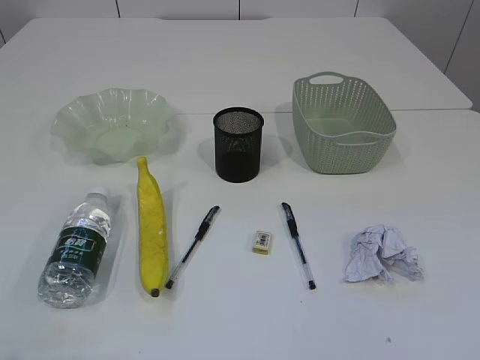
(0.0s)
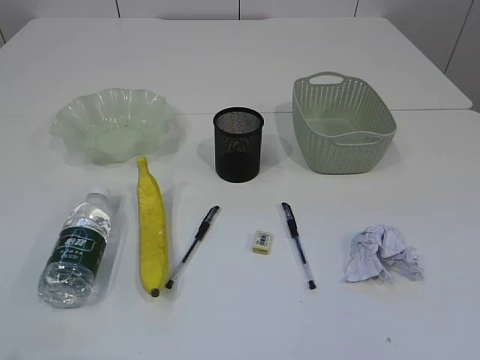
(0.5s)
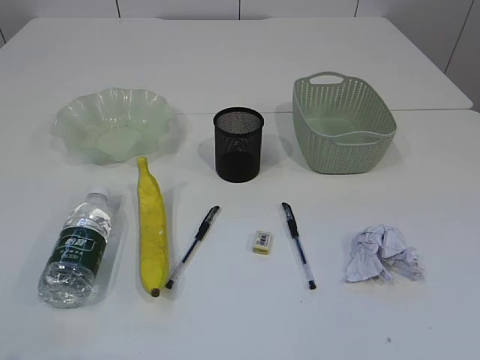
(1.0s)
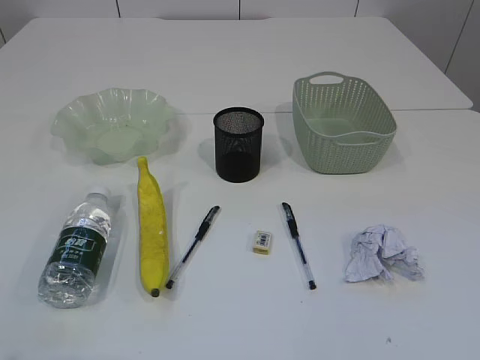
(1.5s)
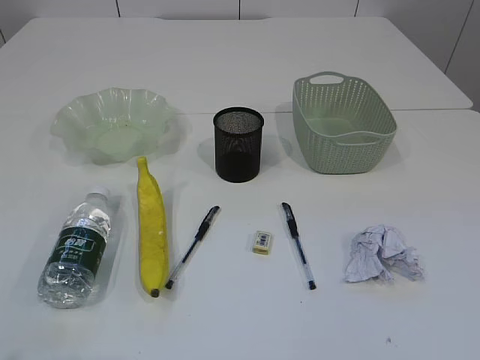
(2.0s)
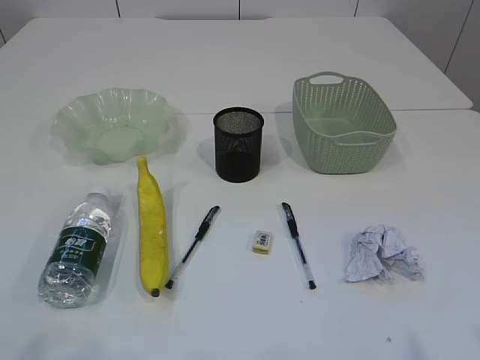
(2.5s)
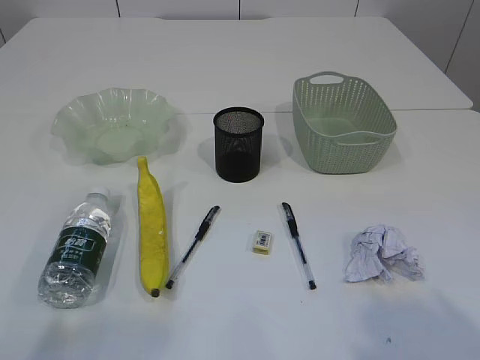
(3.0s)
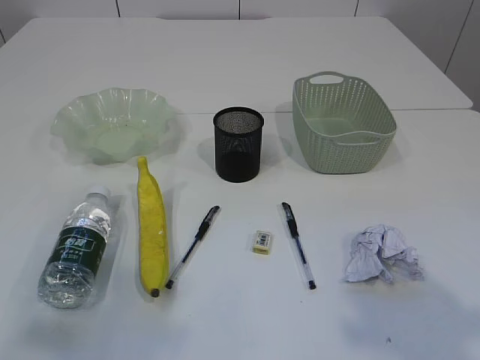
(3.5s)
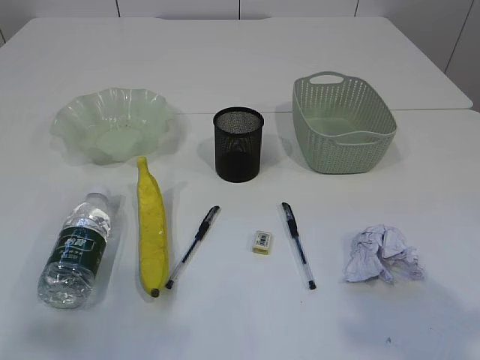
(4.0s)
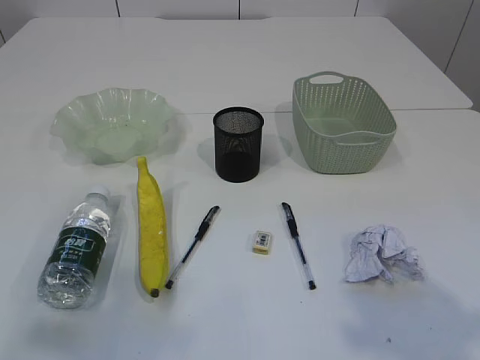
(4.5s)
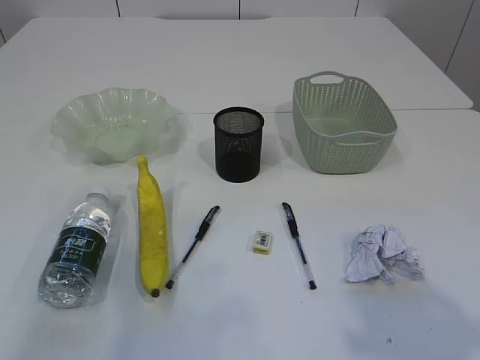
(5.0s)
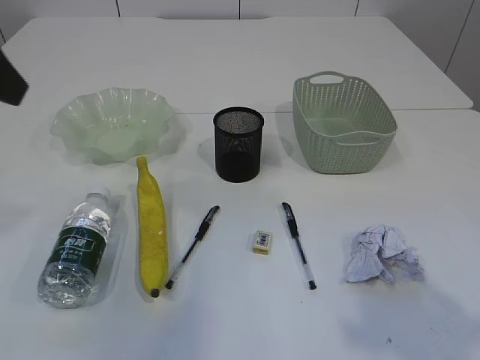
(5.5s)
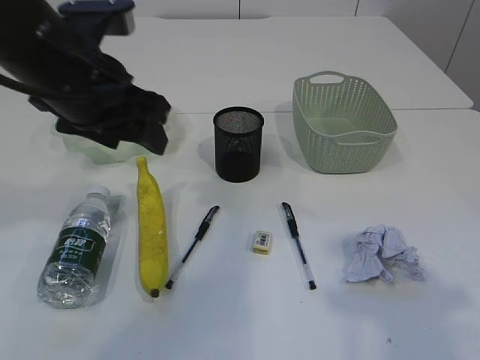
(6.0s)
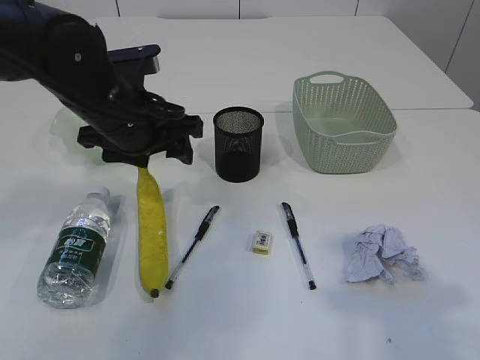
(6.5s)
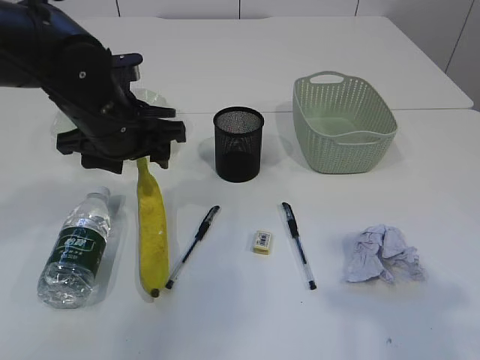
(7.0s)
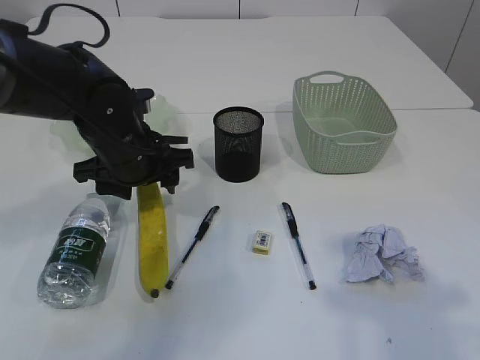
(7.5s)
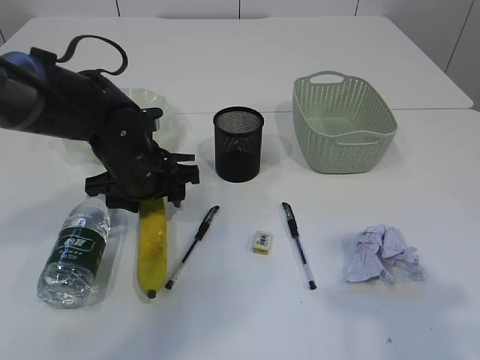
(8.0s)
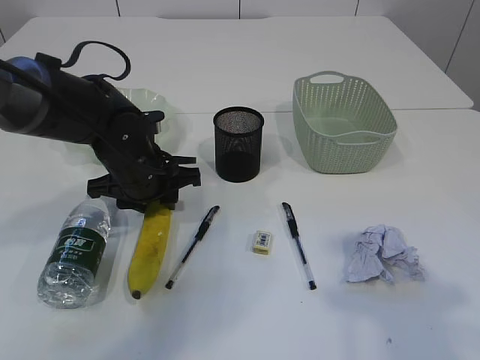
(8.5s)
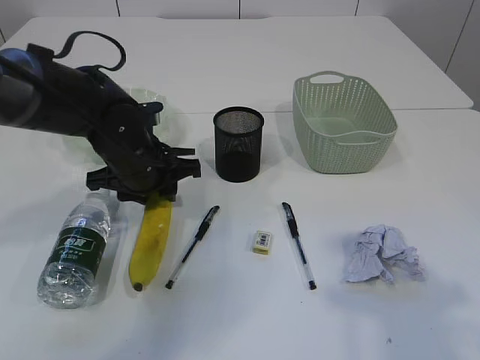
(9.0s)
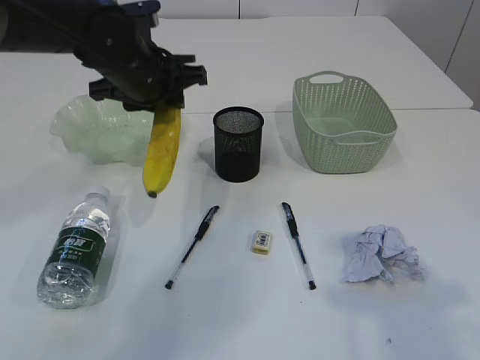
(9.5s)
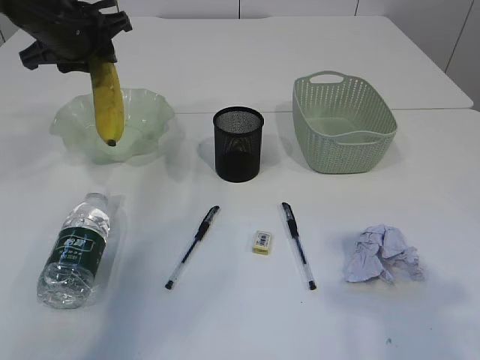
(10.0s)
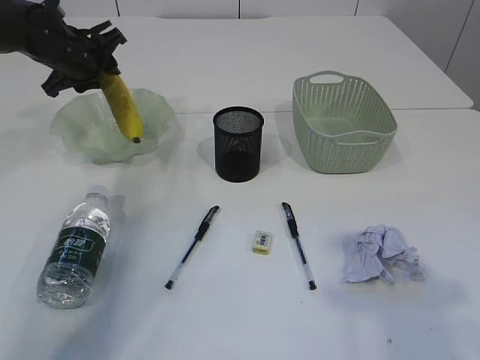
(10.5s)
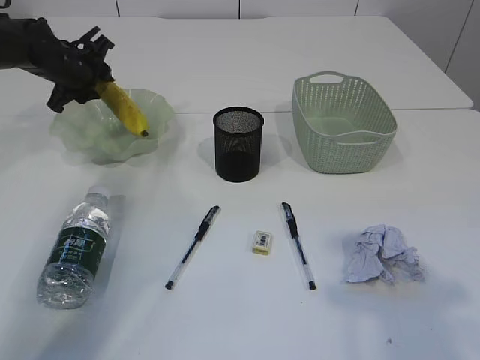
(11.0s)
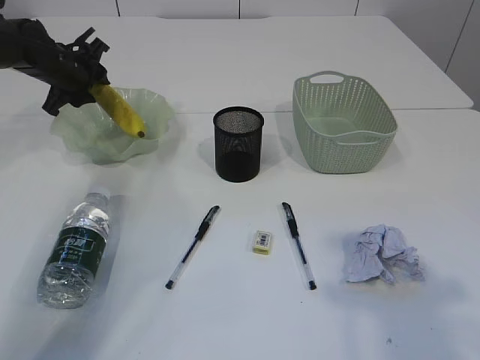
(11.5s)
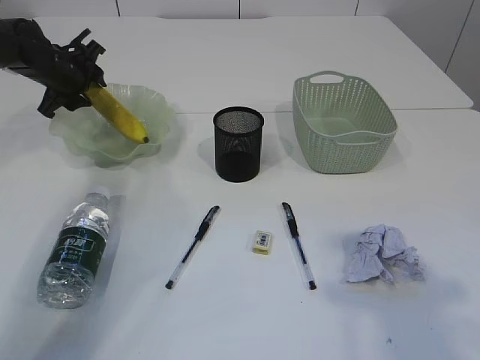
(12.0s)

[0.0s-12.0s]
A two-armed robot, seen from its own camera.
2.0s to 4.0s: The two grippers go some 10 cm forward and upward.
4.0s to 6.0s: The left gripper shifts some 30 cm forward and to the right.
6.0s to 8.0s: The left gripper heads downward, covering about 15 cm.
8.0s to 10.0s: The left gripper shifts some 20 cm upward, forward and to the left, and closes.
10.0s to 12.0s: The left gripper shifts roughly 15 cm downward, forward and to the left.

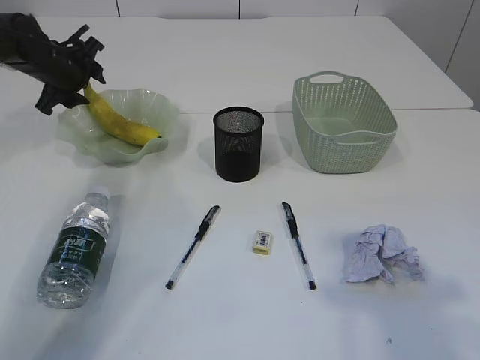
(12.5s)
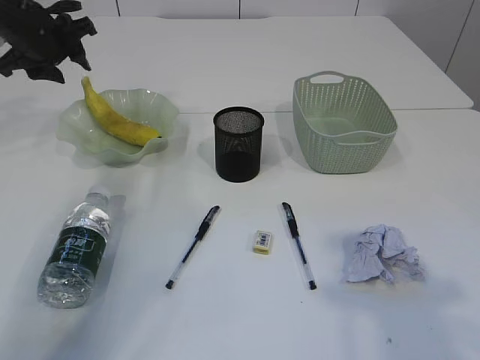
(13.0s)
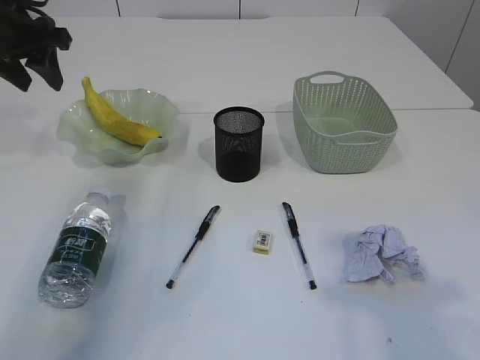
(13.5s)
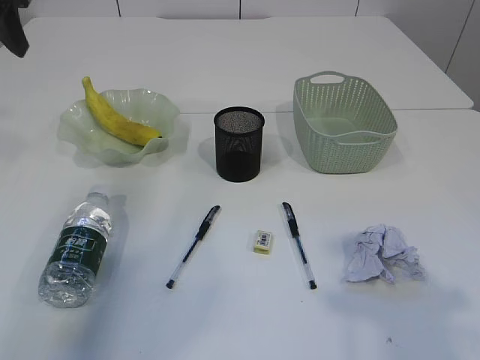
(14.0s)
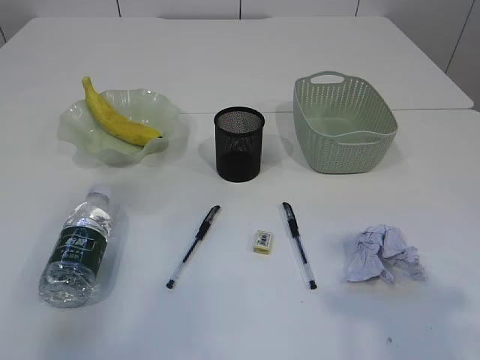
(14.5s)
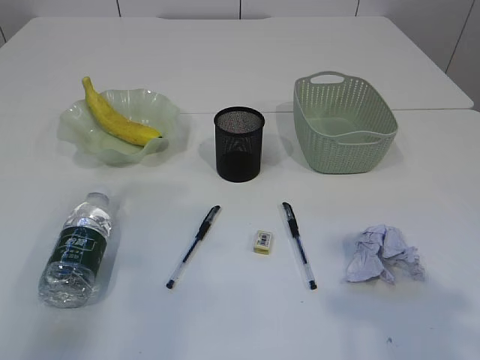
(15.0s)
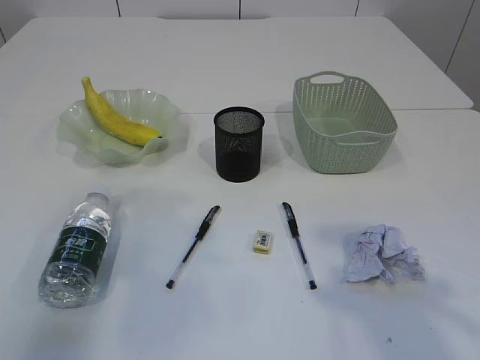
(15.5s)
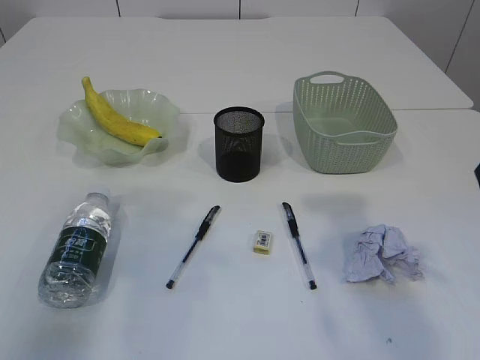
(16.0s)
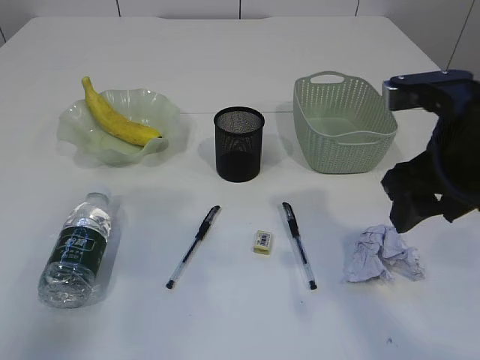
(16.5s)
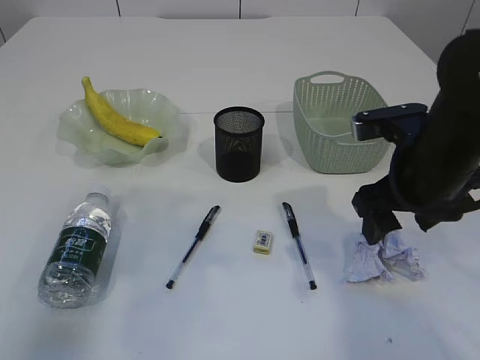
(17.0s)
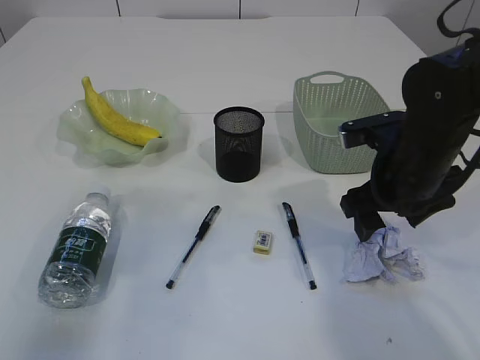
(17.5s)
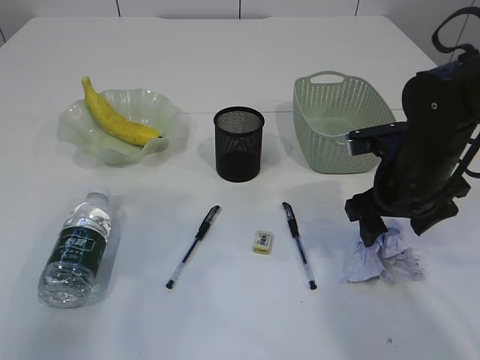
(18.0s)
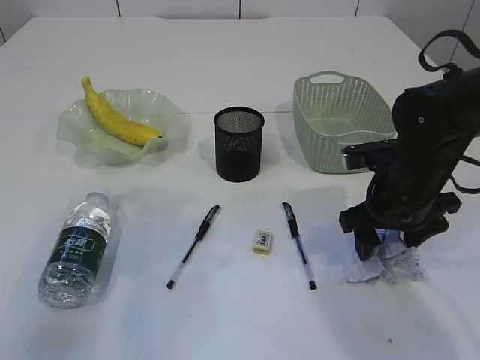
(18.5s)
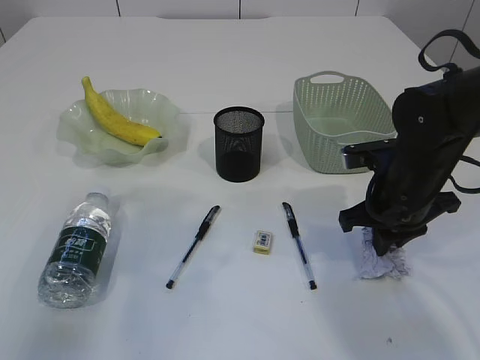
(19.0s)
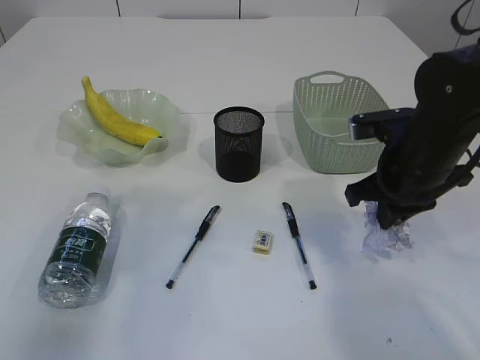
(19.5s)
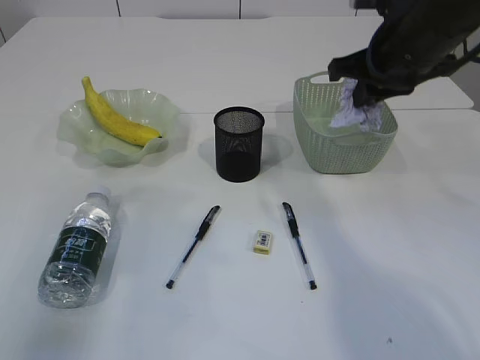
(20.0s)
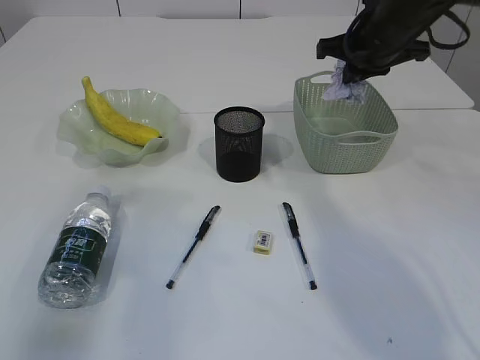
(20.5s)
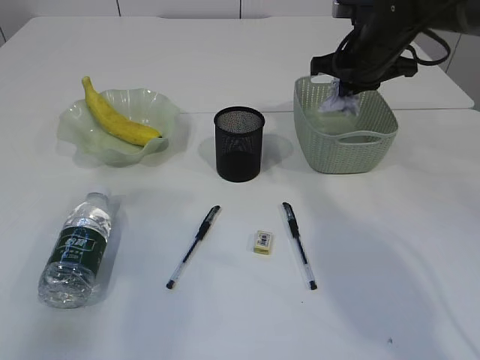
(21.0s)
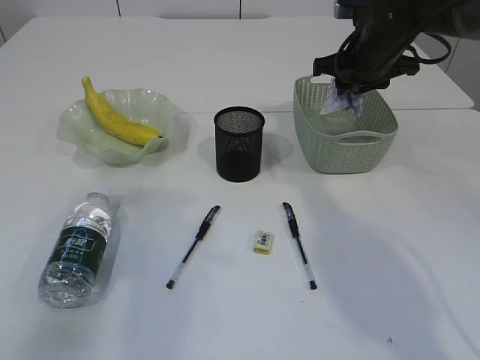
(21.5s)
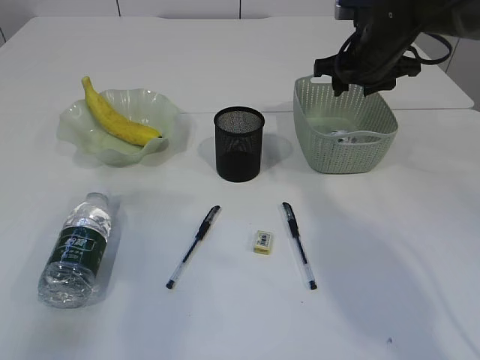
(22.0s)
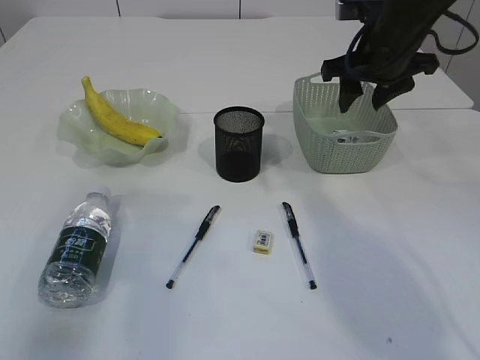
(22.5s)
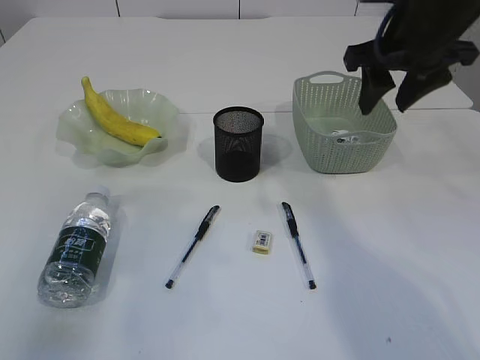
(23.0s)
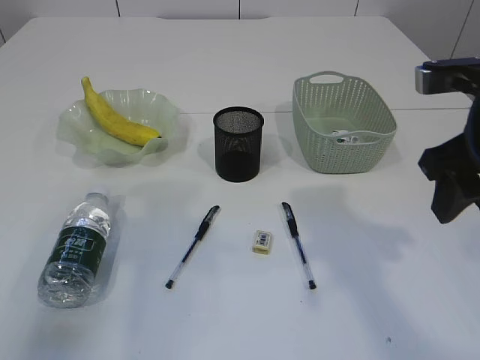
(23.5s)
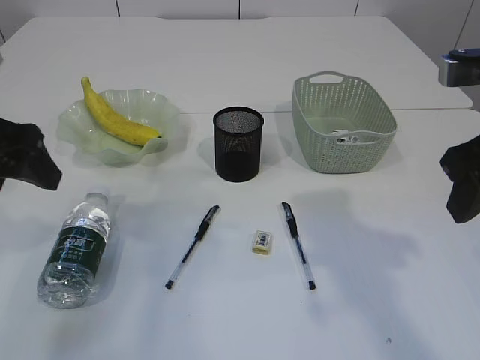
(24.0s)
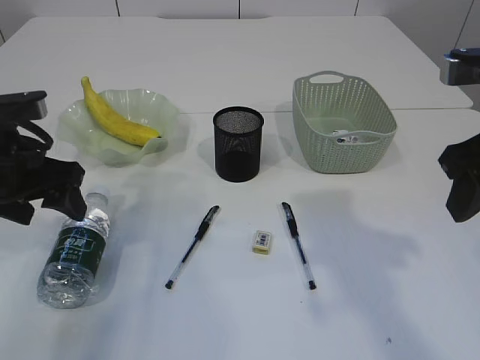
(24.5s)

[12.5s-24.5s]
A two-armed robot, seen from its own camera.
Step, 13.5s to 19.5s: Pick up the waste paper.
Step, 20.0s to 22.5s: Place the waste paper in the basket.
12.5s to 14.5s: The left gripper heads backward and upward, covering some 30 cm.
14.5s to 16.5s: The right gripper moves forward, downward and to the left, some 20 cm.
16.5s to 18.5s: The right gripper travels downward and forward by roughly 15 cm.
18.5s to 20.5s: The right gripper moves upward and forward, some 20 cm, and closes its fingers.
20.5s to 22.5s: The right gripper opens.
22.5s to 24.5s: The right gripper travels backward by some 20 cm. Meanwhile the left gripper shifts approximately 15 cm downward, forward and to the right, and opens up.

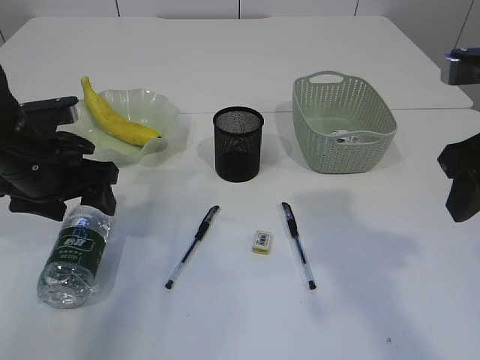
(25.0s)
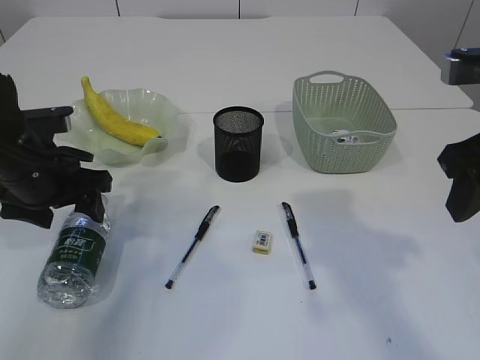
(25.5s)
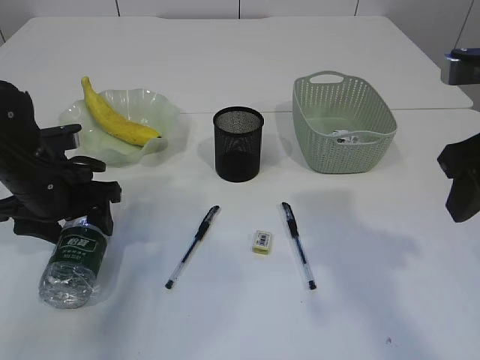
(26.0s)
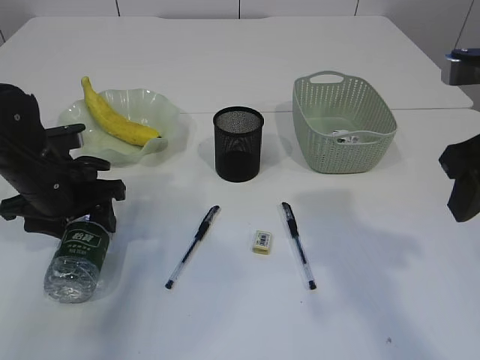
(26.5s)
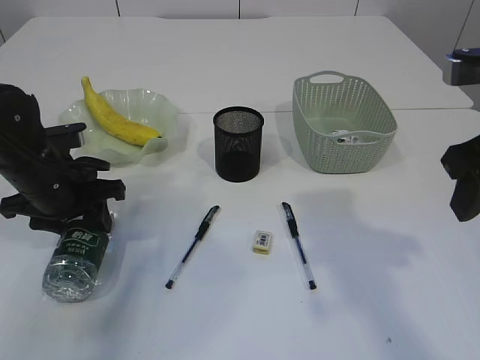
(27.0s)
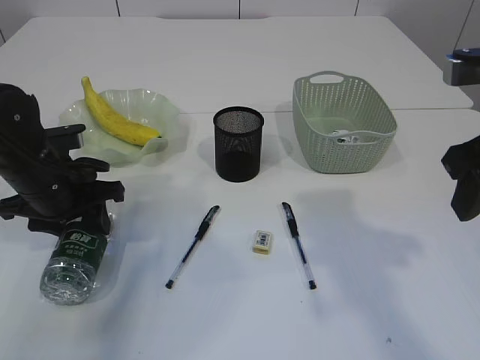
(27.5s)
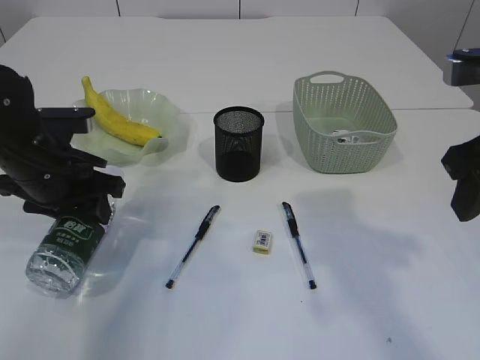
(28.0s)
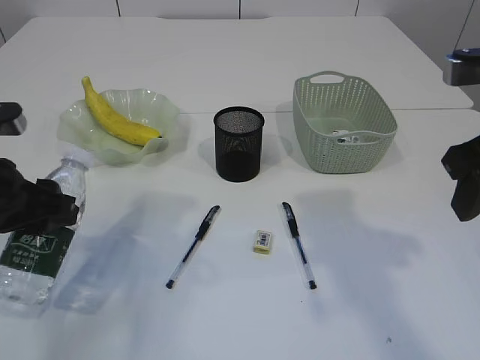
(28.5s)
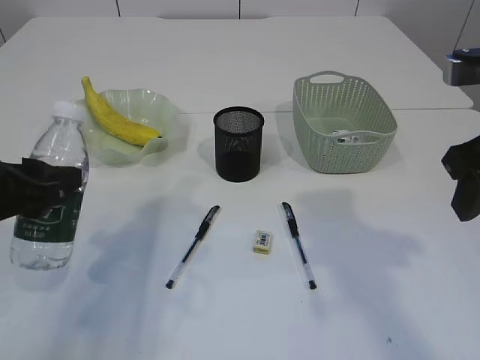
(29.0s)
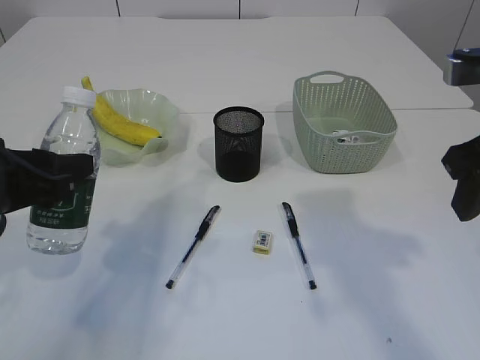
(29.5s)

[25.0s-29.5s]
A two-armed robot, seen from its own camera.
Step, 25.0s to 28.0s: Pick up the bottle with the left arm.
25.0s to 27.0s: The left gripper closes its fingers.
27.0s to 29.5s: The left gripper travels backward and upward by about 15 cm.
